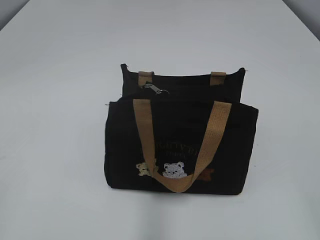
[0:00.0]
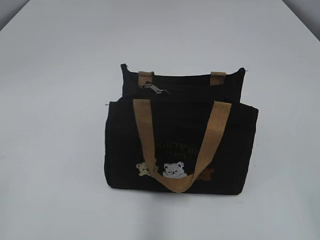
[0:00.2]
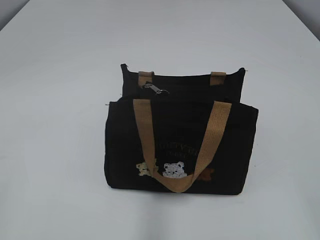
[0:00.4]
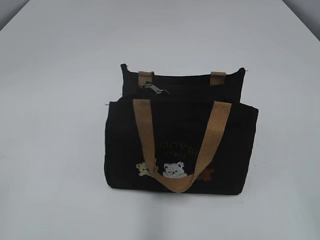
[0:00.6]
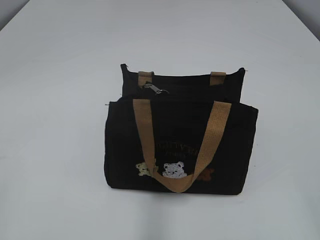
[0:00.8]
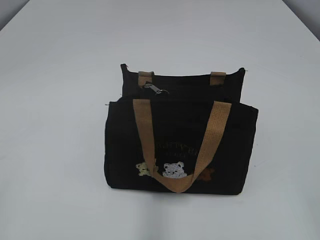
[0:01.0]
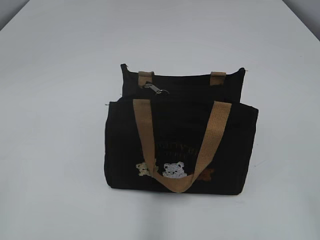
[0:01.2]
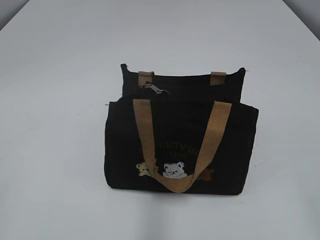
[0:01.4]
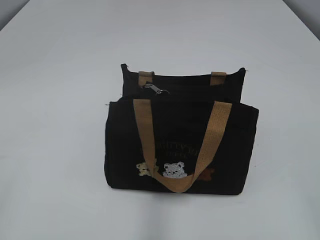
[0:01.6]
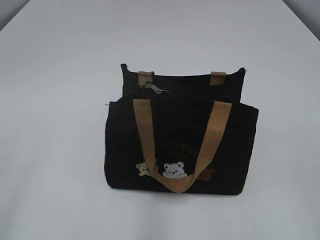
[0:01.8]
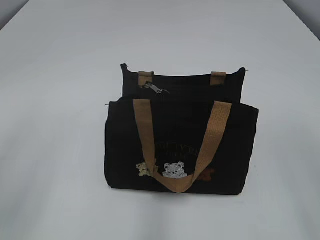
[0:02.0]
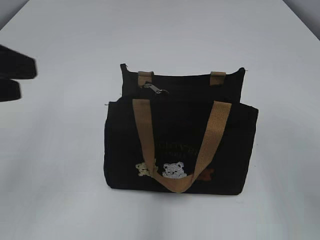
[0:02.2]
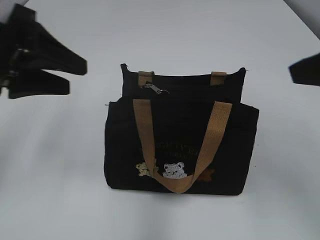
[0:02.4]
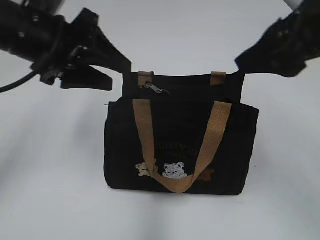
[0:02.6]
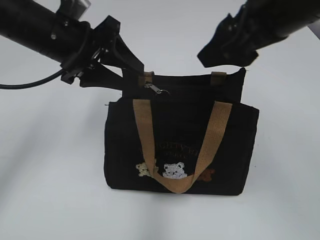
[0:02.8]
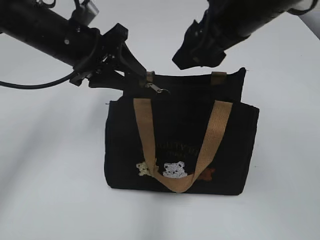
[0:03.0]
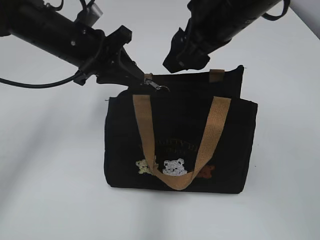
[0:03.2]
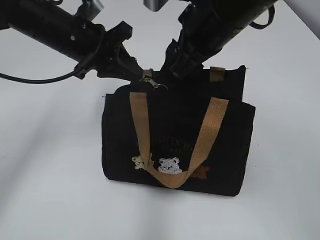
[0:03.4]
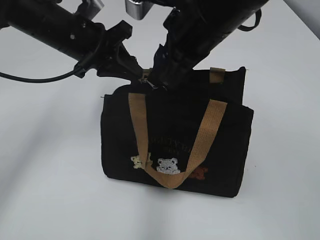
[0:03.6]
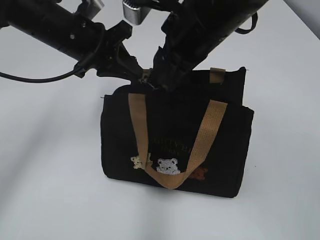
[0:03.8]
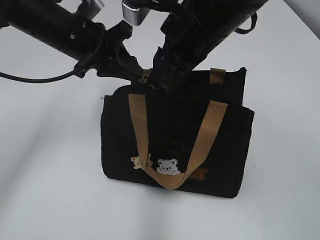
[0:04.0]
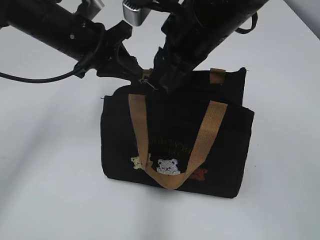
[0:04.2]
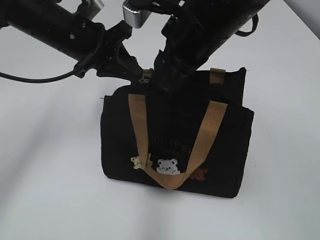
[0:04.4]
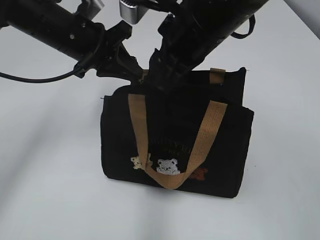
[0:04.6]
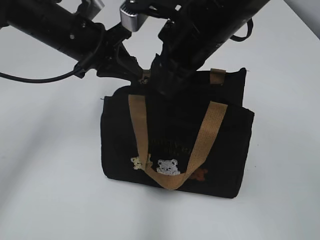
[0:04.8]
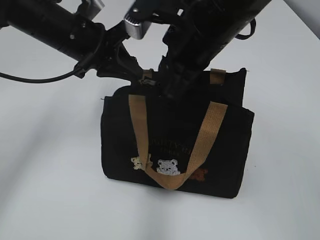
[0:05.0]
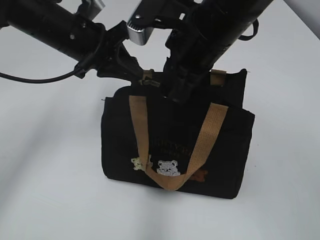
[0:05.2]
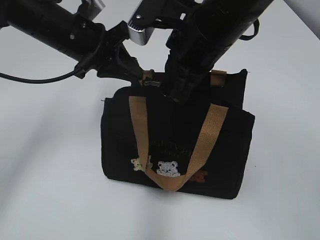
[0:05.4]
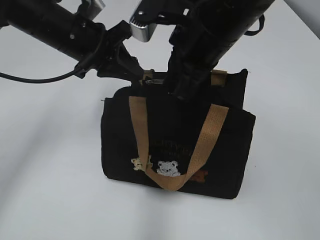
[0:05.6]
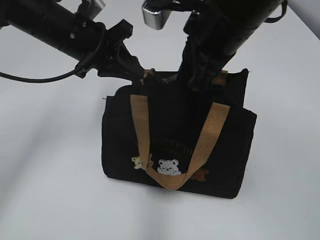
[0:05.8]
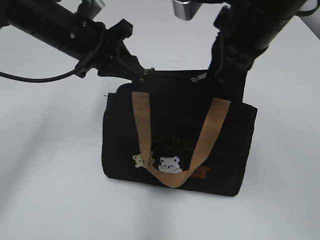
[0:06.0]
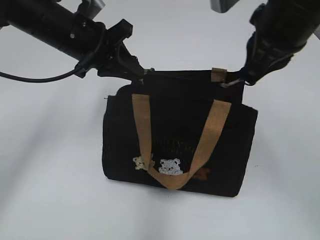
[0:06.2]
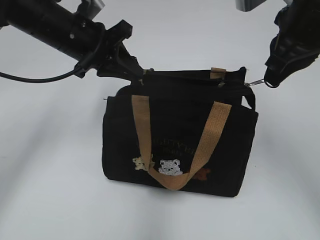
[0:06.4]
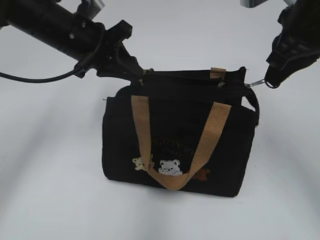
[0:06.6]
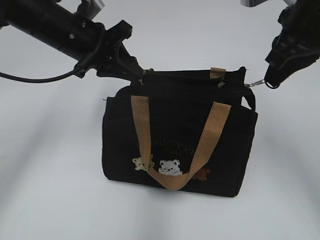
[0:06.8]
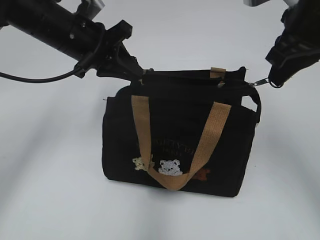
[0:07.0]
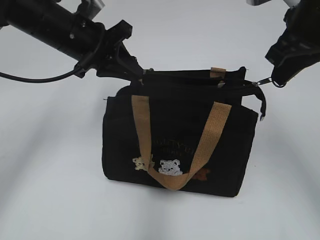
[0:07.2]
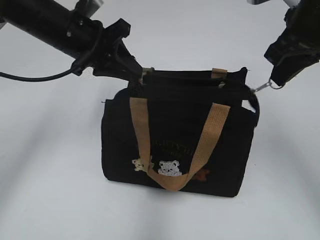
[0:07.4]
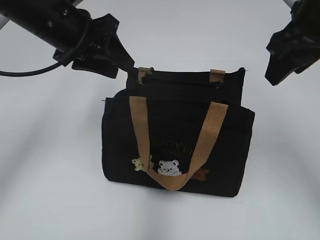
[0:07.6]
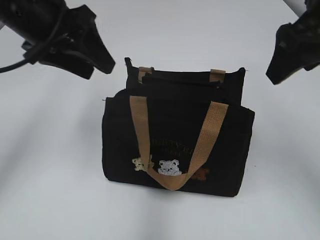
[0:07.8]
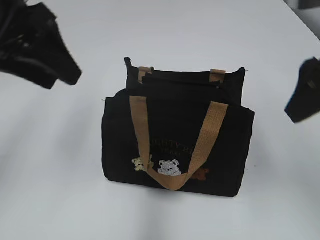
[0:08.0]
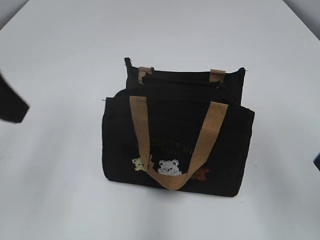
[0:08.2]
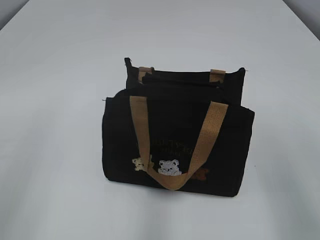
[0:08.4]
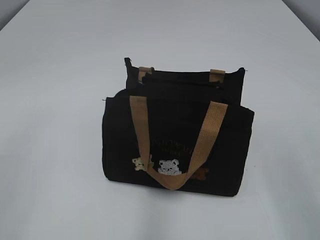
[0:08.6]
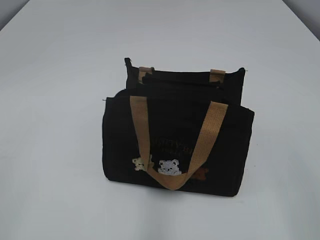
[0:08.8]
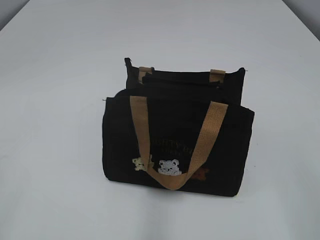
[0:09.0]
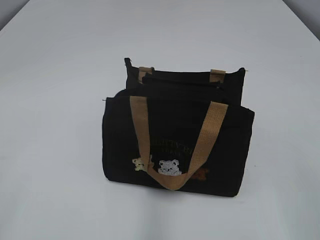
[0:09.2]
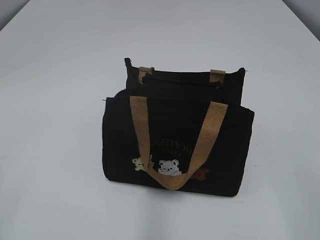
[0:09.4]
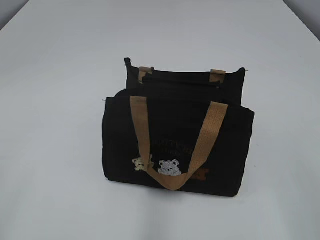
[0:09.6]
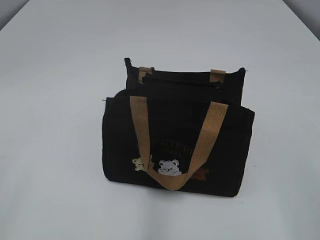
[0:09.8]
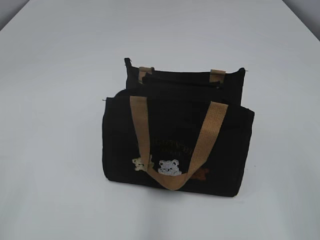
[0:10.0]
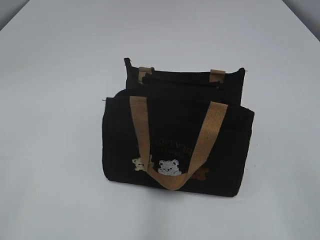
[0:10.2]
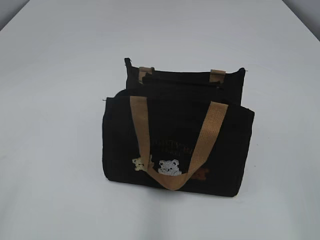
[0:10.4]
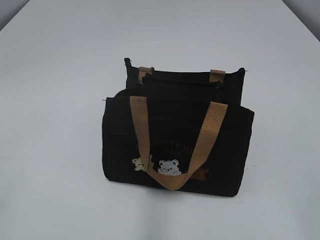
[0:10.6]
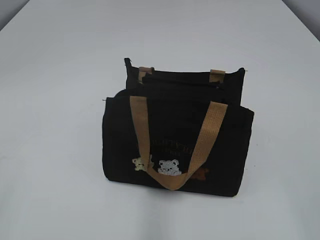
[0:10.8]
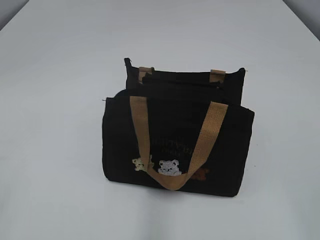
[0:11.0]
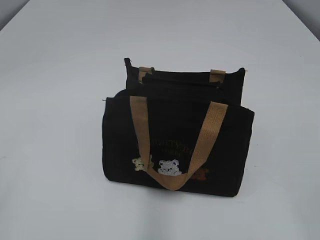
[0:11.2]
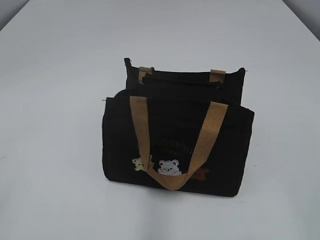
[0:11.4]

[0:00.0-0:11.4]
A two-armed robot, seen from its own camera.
Step, 0:00.0 to 0:07.4: Pull open the zipper with your right hand.
0:01.4 to 0:02.8: The left gripper goes approximately 35 cm forward and to the right. Meanwhile the right gripper is displaced forward and to the left by some 30 cm.
0:02.8 to 0:04.2: The right gripper moves to the left, forward and downward, roughly 10 cm. Meanwhile the left gripper moves approximately 5 cm, and closes.
0:04.2 to 0:05.6: The right gripper closes up.
0:05.6 to 0:07.2: The right gripper moves to the right, approximately 15 cm.
0:07.2 to 0:08.6: The right gripper goes approximately 20 cm backward, and opens its fingers, while the left gripper shifts some 30 cm backward and to the left, and opens its fingers.
